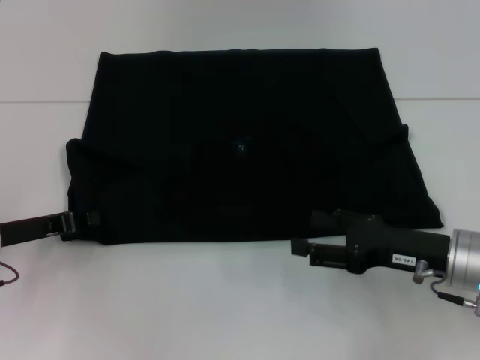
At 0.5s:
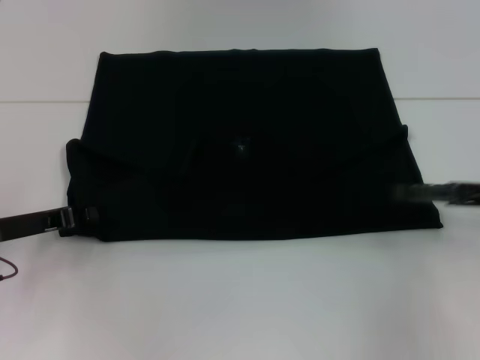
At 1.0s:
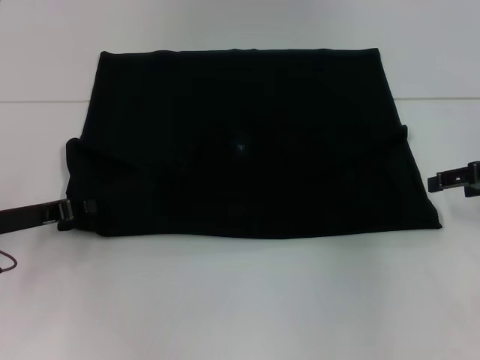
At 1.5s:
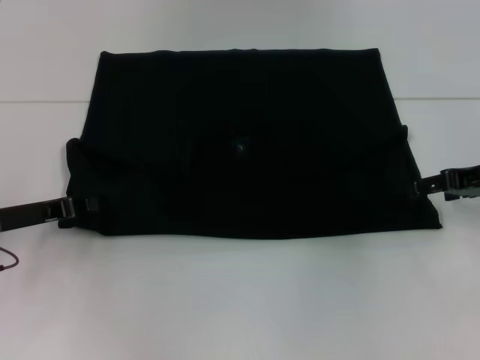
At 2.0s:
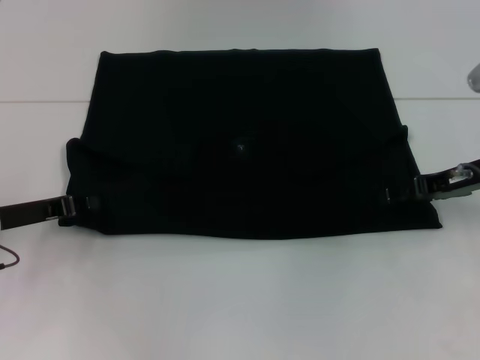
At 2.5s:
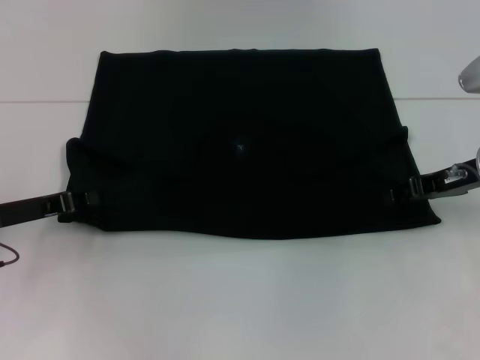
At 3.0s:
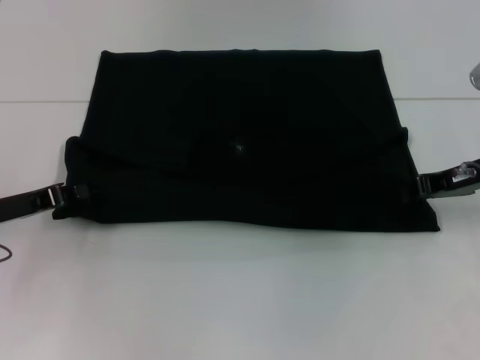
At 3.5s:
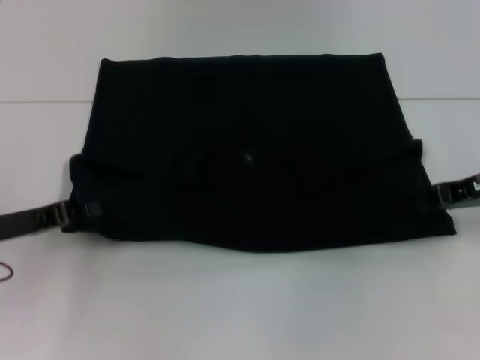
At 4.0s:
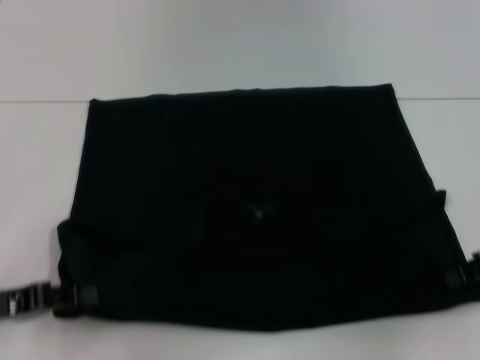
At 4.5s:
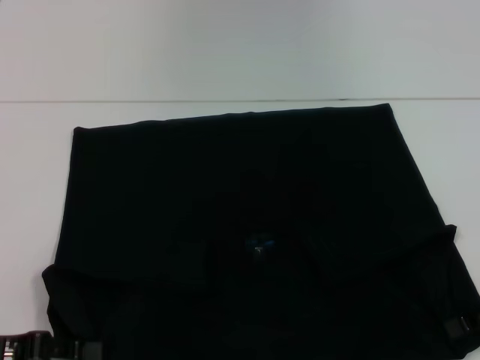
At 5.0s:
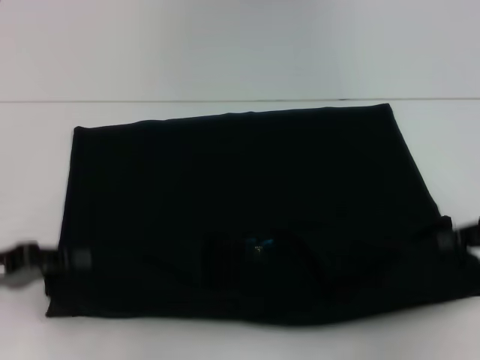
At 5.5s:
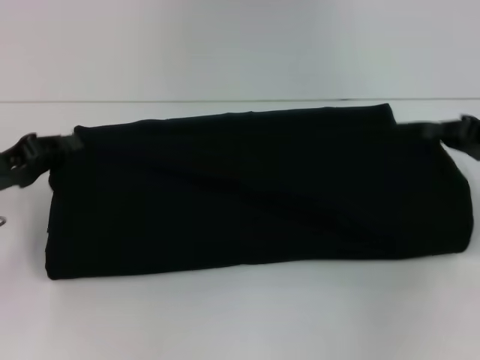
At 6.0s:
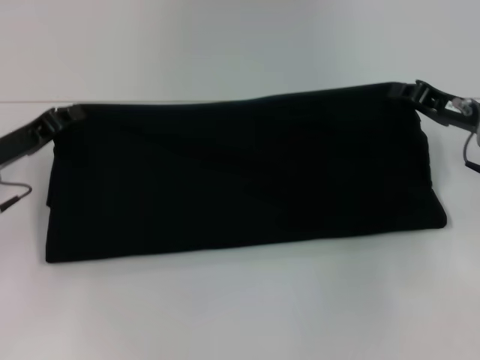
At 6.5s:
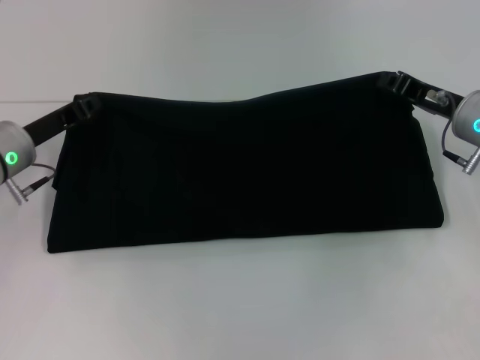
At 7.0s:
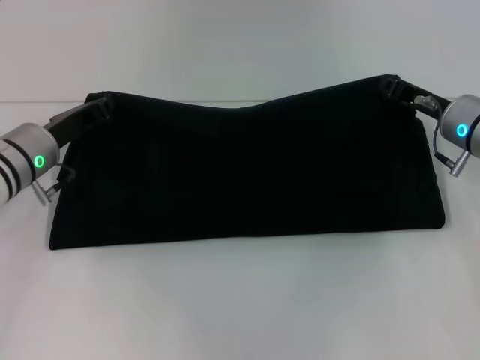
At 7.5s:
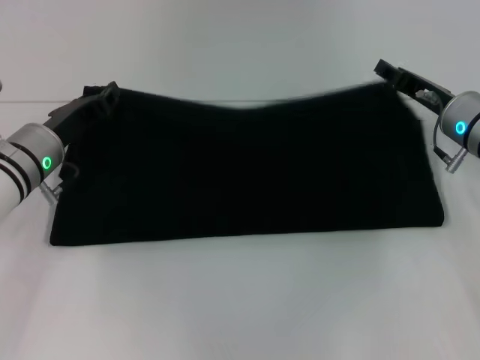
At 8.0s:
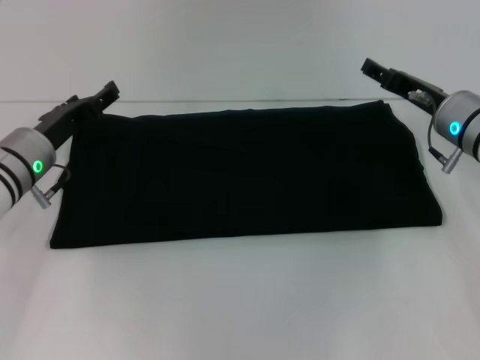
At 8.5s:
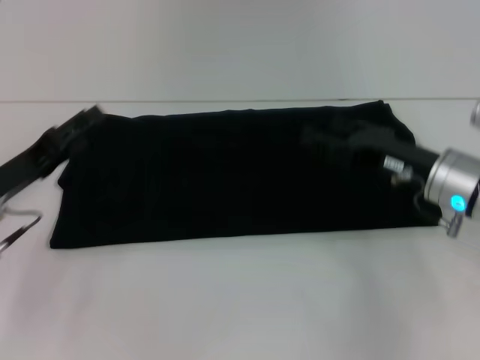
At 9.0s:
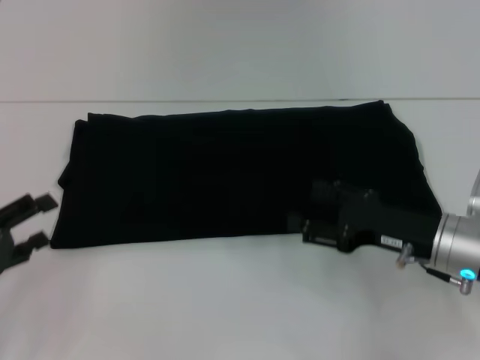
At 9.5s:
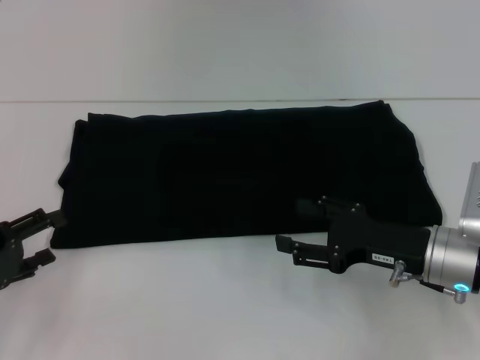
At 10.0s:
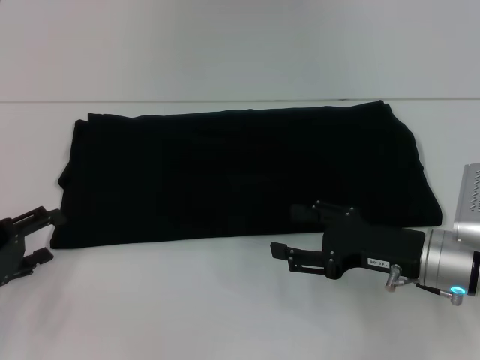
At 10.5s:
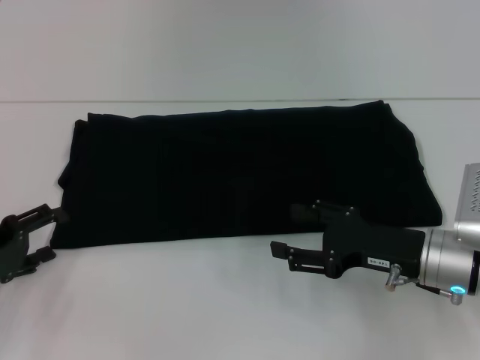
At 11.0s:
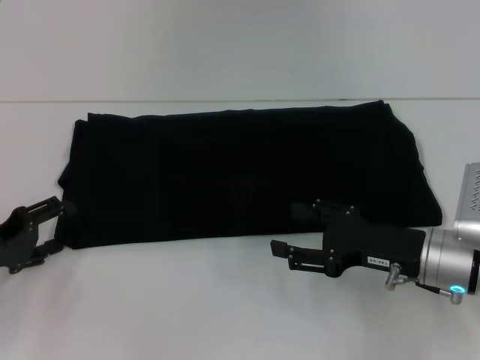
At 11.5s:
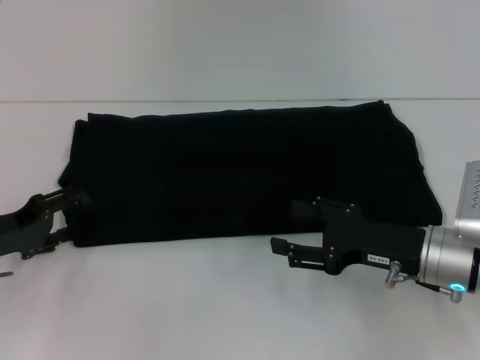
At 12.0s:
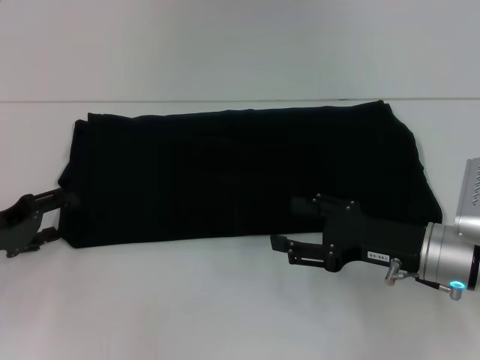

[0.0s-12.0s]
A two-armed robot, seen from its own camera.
Step, 0.0s to 4.0s: Pull the clothes with your left hand.
Step, 0.0s to 4.0s: Pull the clothes with your right hand.
Step, 4.5s to 8.0s: Fold the clothes with your right hand.
0.0s to 2.0s: The right gripper shifts approximately 10 cm forward and upward.
2.0s to 4.0s: The right gripper heads backward and to the right, covering some 10 cm, and closes its fingers. The left gripper travels backward by about 10 cm.
4.0s to 6.0s: The left gripper heads forward, covering some 10 cm. The right gripper travels forward and to the left by roughly 10 cm.
6.0s to 8.0s: The right gripper moves approximately 5 cm, and opens up, while the left gripper is displaced to the right by some 5 cm, and opens up.
8.0s to 10.0s: The right gripper shifts roughly 10 cm backward. Meanwhile the left gripper shifts approximately 15 cm backward and to the left.
10.0s to 12.0s: The grippers move only a little.

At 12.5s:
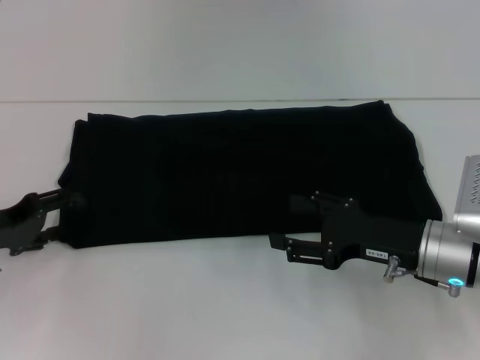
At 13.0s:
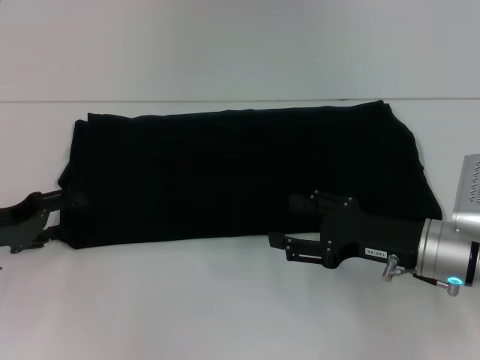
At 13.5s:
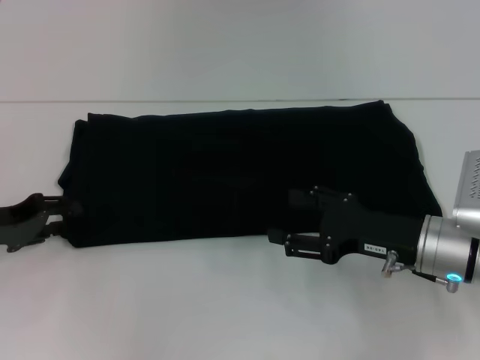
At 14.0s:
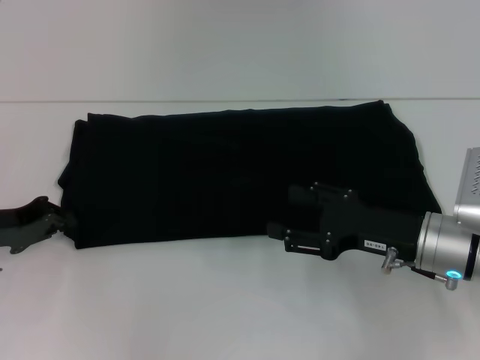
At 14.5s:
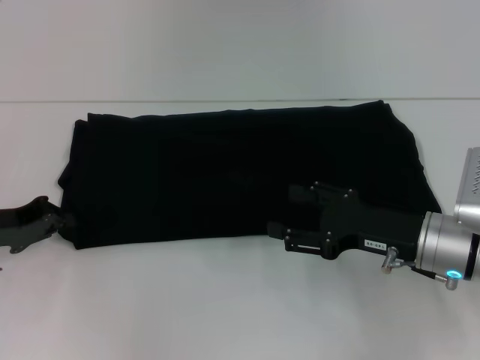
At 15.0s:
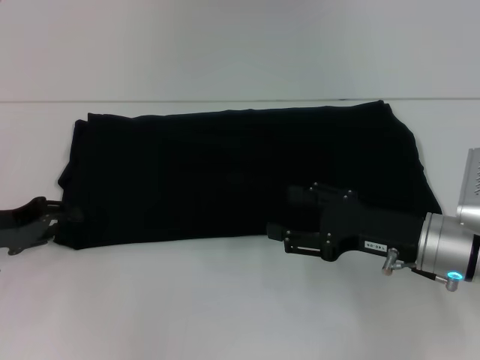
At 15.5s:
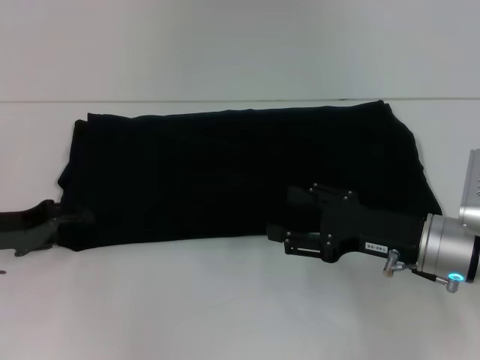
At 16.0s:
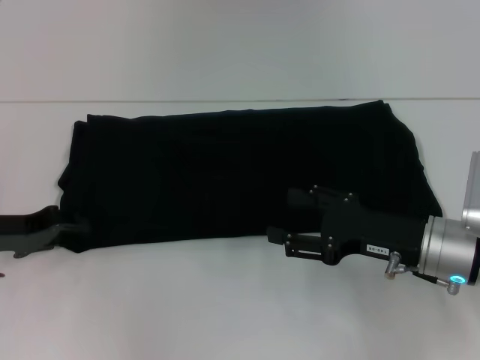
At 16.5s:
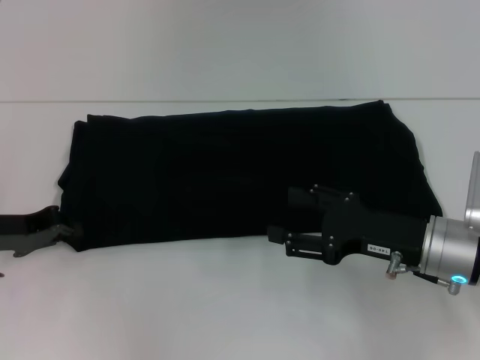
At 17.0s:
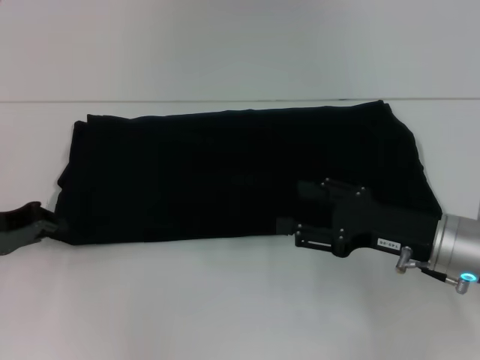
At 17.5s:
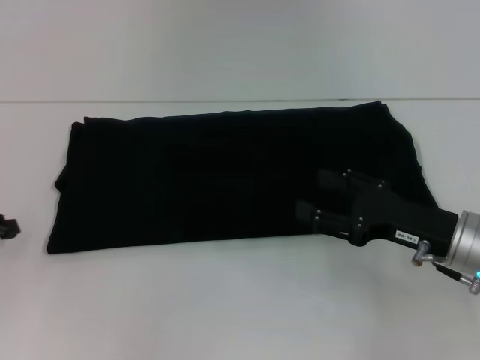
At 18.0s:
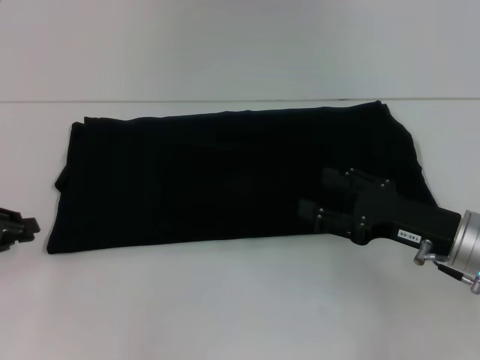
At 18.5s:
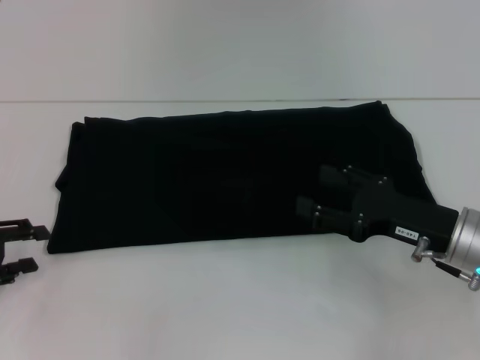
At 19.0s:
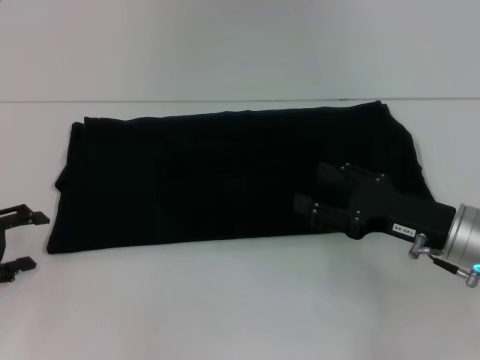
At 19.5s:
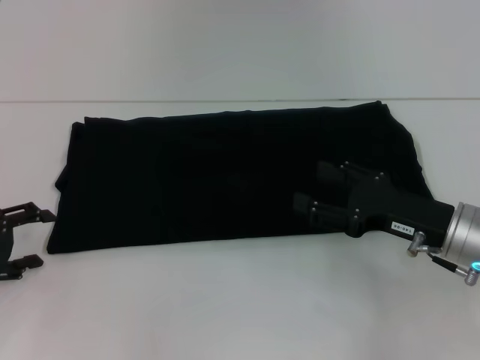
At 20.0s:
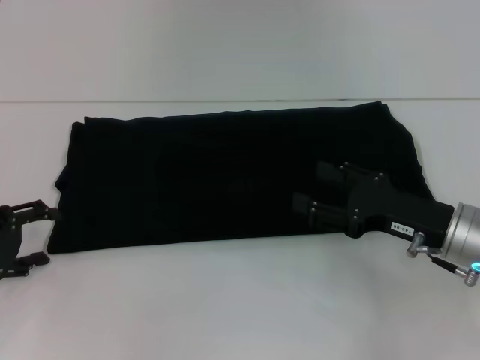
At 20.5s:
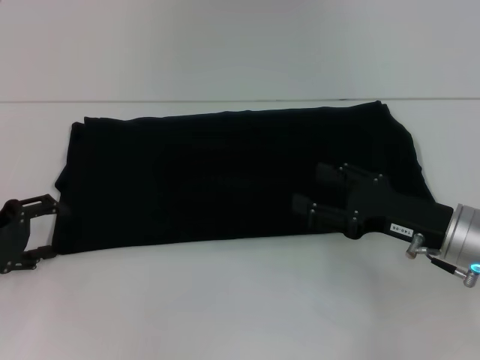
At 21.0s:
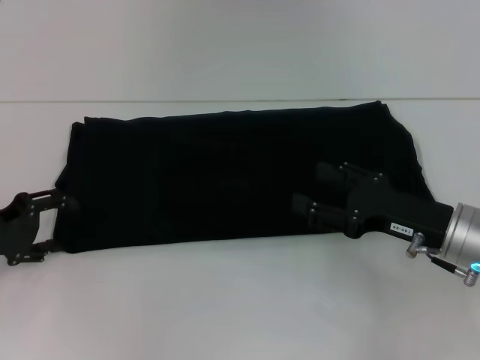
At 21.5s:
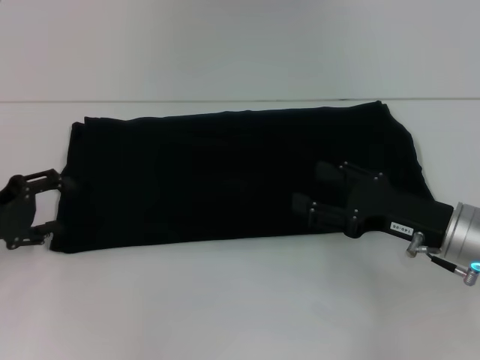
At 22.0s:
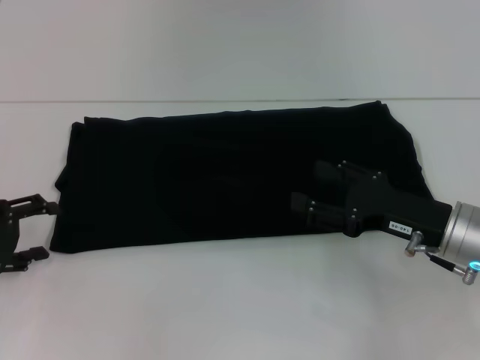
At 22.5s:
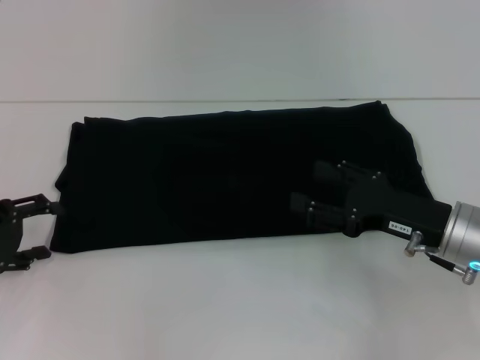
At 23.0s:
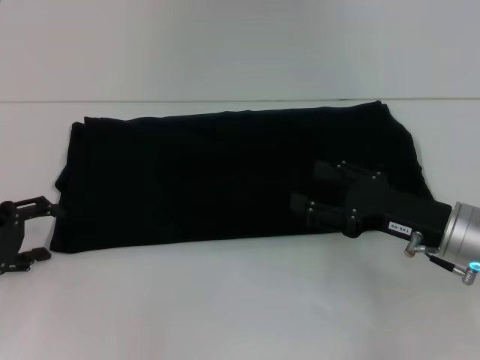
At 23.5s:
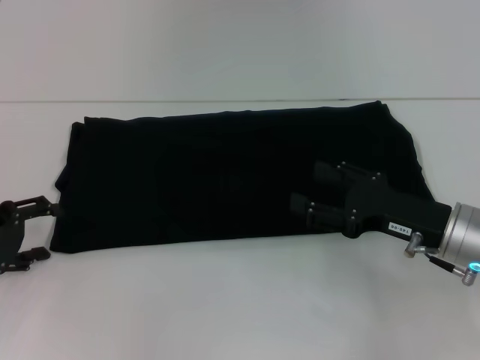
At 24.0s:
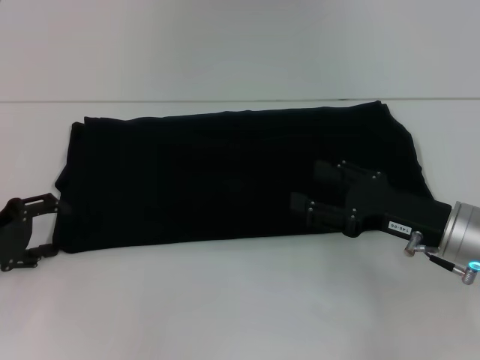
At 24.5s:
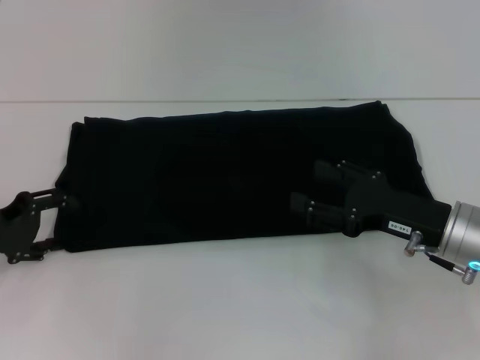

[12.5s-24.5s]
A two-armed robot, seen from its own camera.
12.5s to 14.5s: The left gripper closes.
14.5s to 16.5s: The left gripper opens, then closes again.
16.5s to 18.5s: The left gripper heads backward and to the left, covering some 5 cm.
18.5s to 20.5s: The left gripper opens up.
20.5s to 24.5s: The grippers move only a little.

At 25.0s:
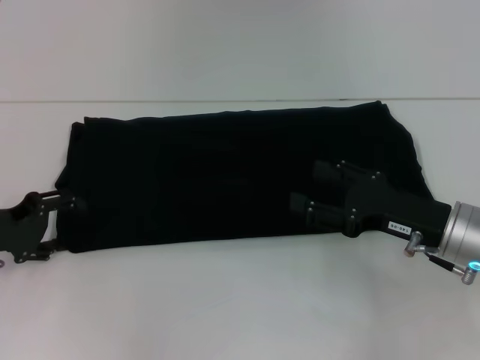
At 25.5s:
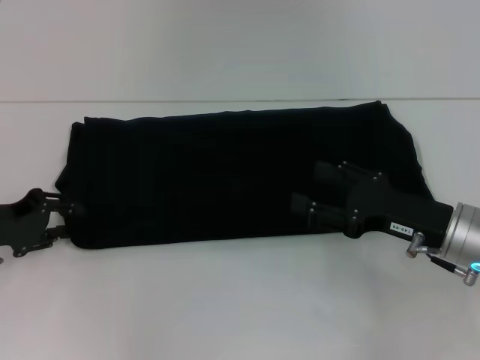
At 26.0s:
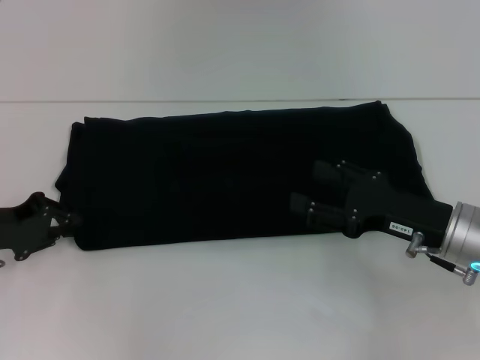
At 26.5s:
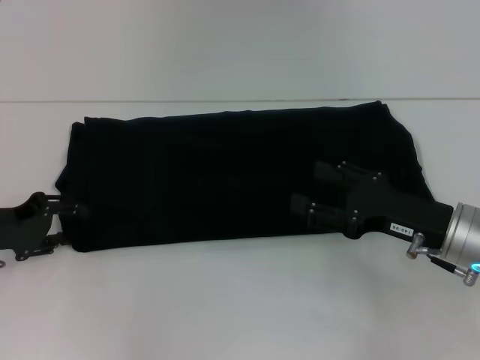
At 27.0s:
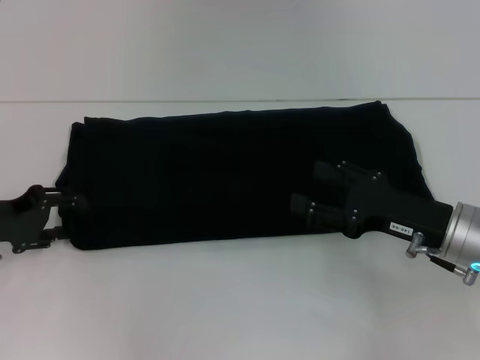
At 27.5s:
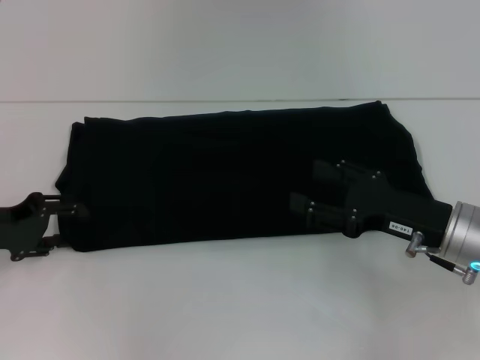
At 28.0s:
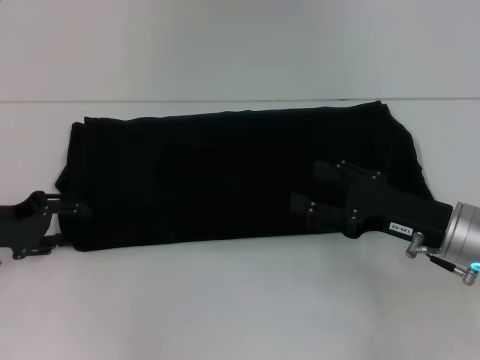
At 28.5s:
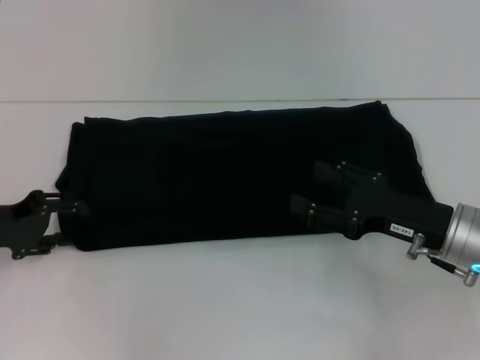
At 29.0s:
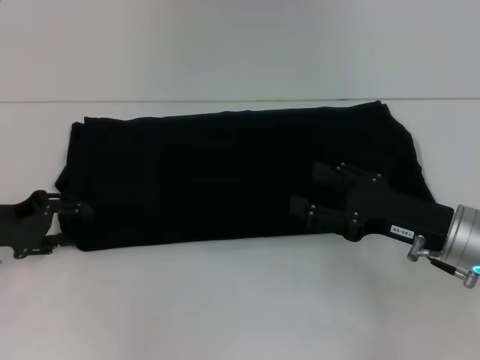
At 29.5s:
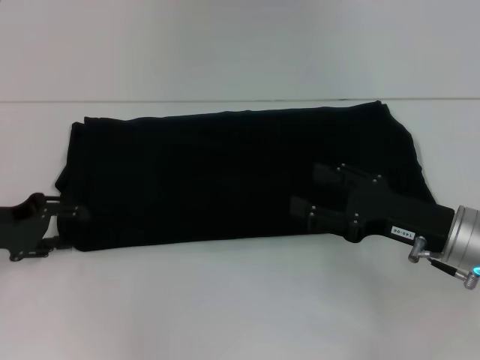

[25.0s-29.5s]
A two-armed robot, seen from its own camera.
25.0s to 27.0s: The left gripper closes, then reopens.
27.0s to 29.5s: The two grippers keep their place.
